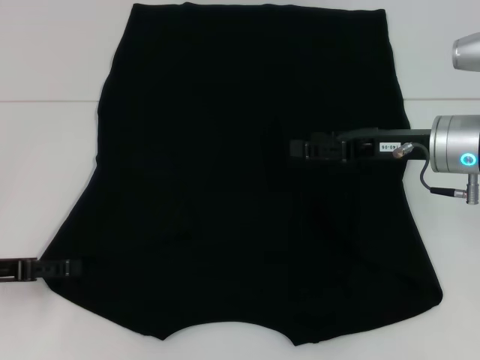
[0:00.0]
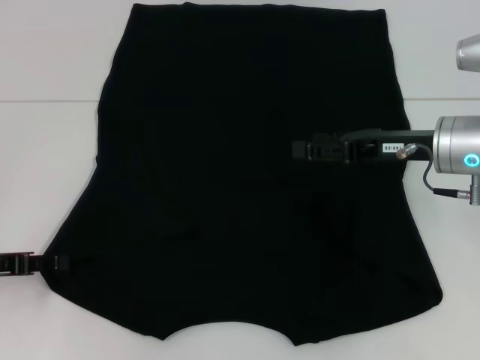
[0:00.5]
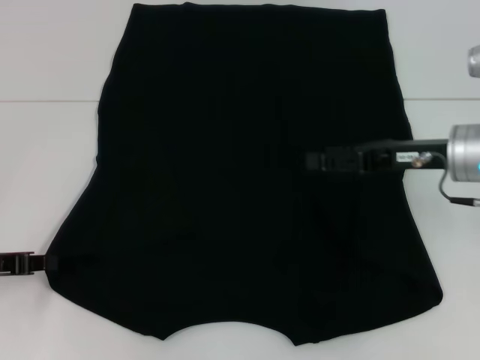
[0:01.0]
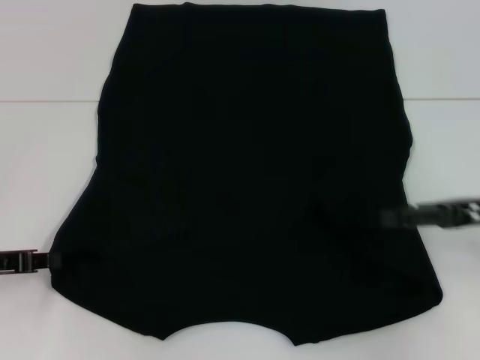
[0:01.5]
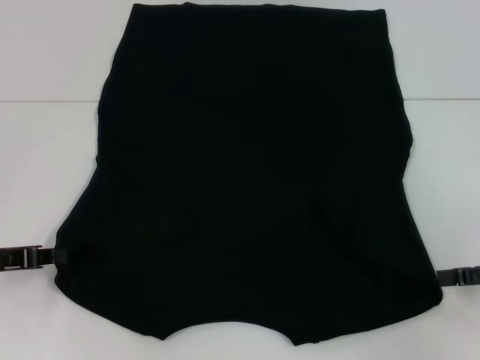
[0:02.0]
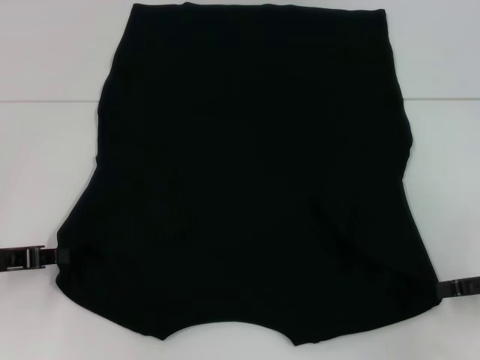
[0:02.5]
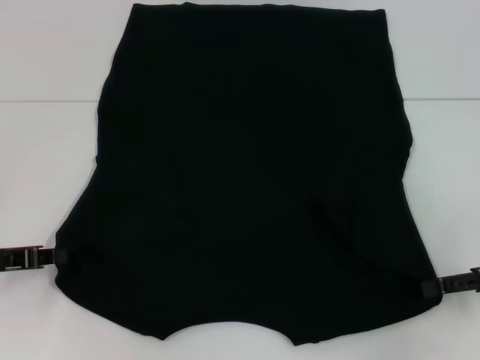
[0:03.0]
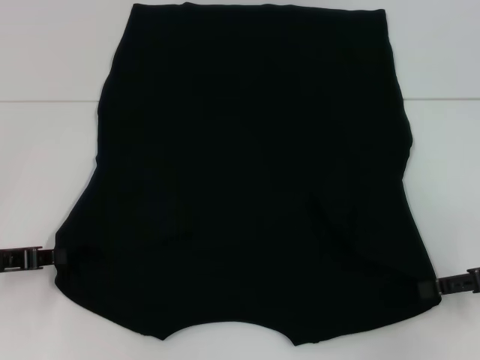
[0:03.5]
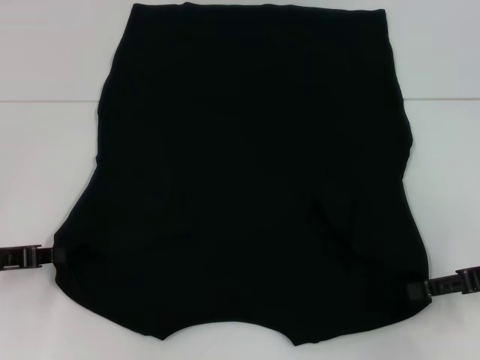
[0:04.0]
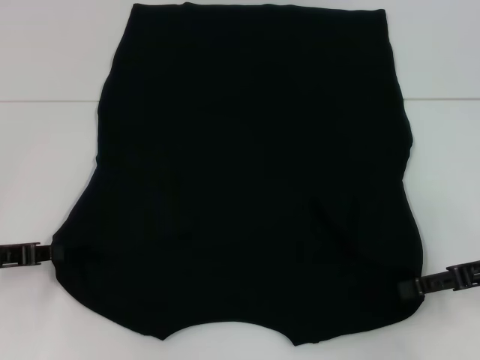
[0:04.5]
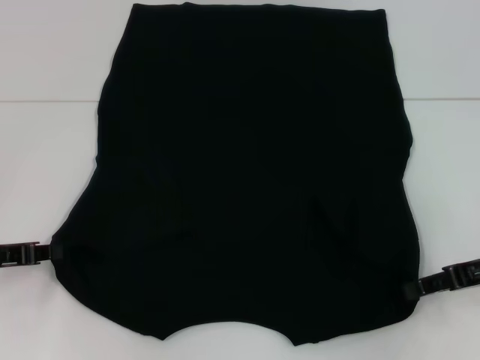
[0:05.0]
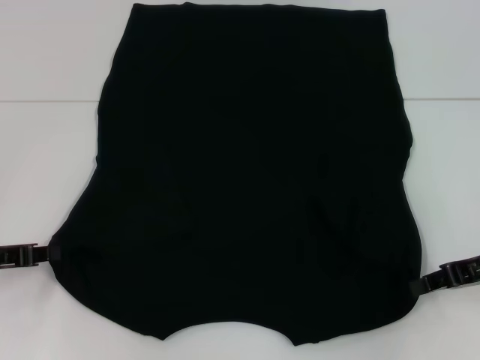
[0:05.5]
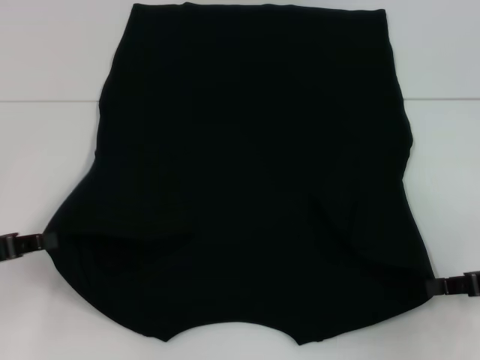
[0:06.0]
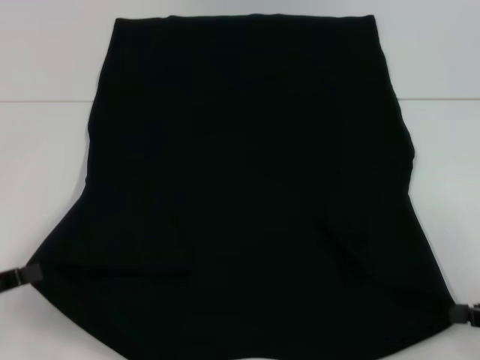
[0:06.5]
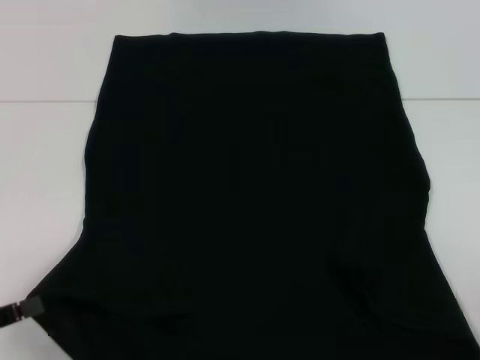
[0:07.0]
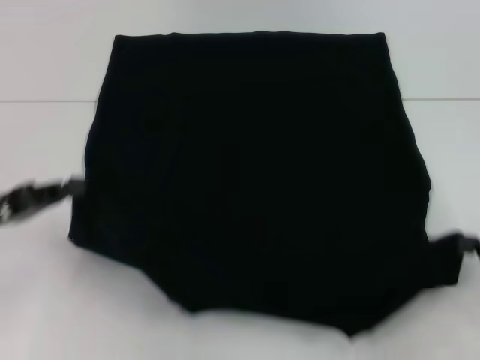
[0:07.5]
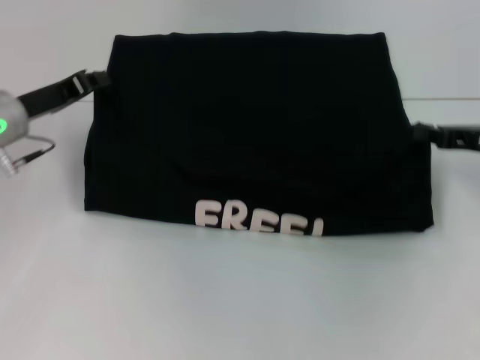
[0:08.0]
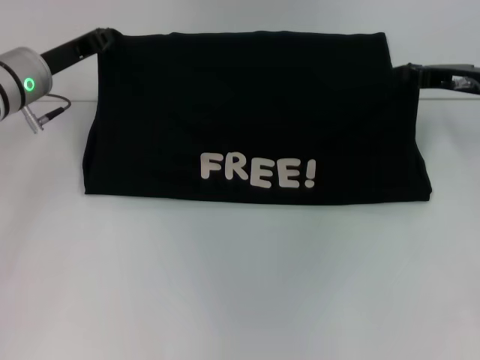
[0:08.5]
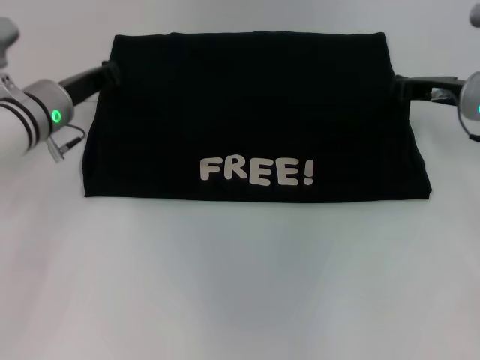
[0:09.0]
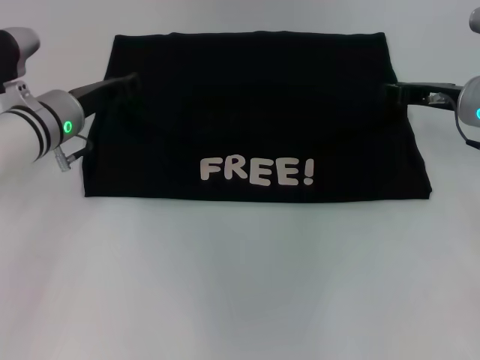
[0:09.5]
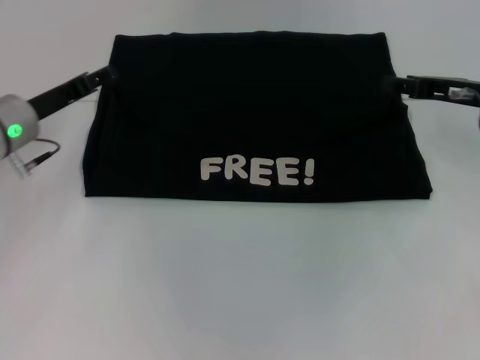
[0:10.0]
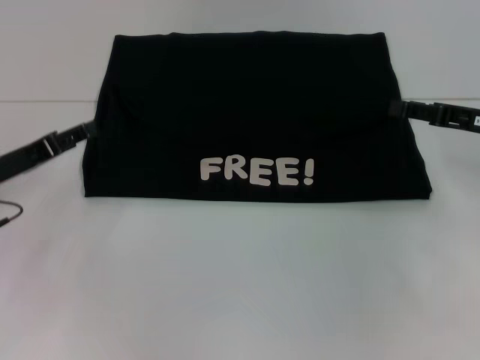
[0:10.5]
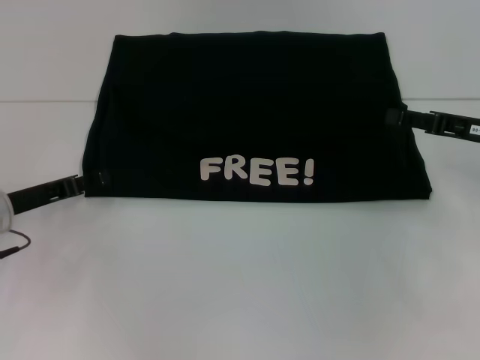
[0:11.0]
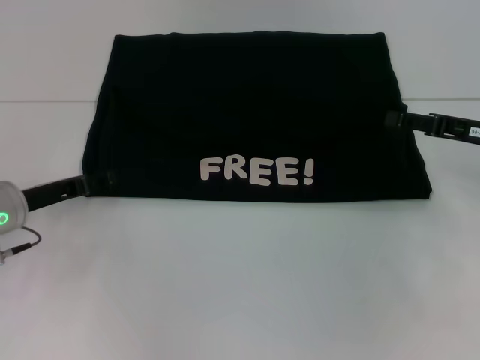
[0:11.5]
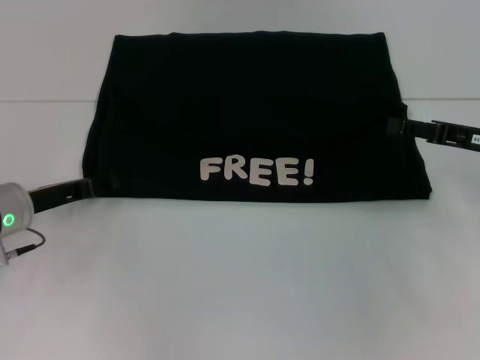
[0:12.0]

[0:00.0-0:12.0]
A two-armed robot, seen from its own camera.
Step, 2.5 to 4.5 s: Grab the bottom right corner with your right hand.
Step, 5.0 to 9.5 s: Fold the clothes with your left hand.
Step, 5.0 to 9.5 s: Fold the clothes with your right hand.
0.0 to 2.0 s: The right gripper moves to the right and backward, approximately 20 cm, while the left gripper closes up.
2.0 to 4.0 s: The grippers move only a little.
4.0 to 6.0 s: The right gripper closes.
6.0 to 8.0 s: The right gripper travels forward by about 10 cm, while the left gripper goes about 15 cm forward and to the right.
8.0 to 10.0 s: The right gripper changes place by about 5 cm, and opens. The left gripper opens its fingers.
10.0 to 12.0 s: The right gripper heads backward, covering roughly 5 cm; the left gripper moves backward and downward, roughly 10 cm.

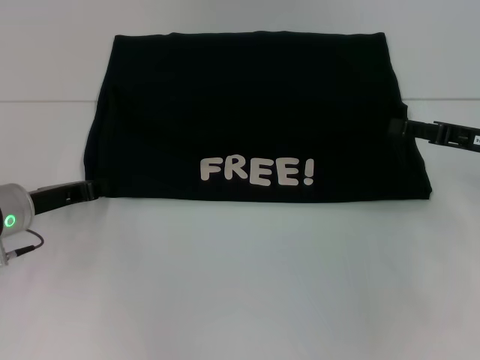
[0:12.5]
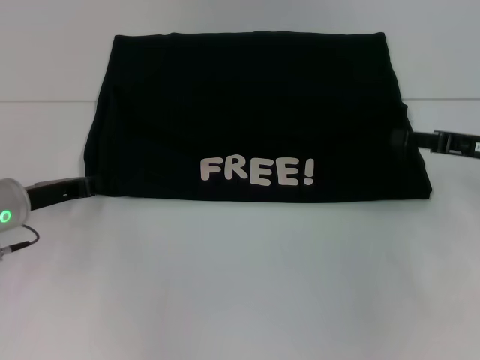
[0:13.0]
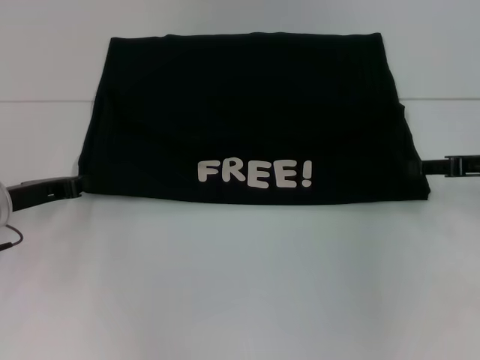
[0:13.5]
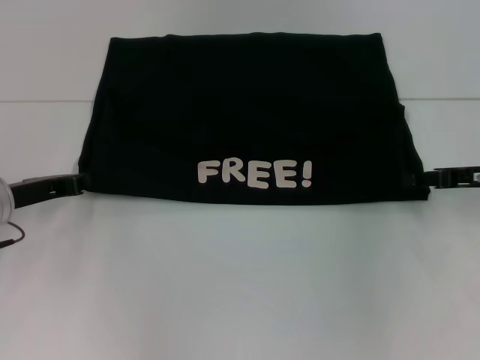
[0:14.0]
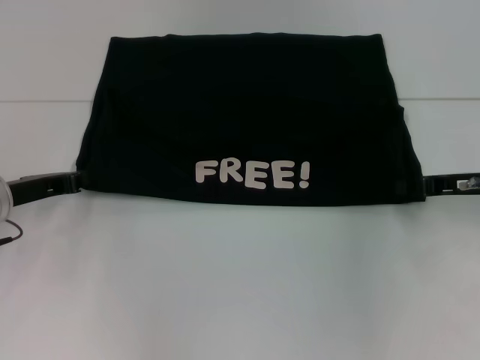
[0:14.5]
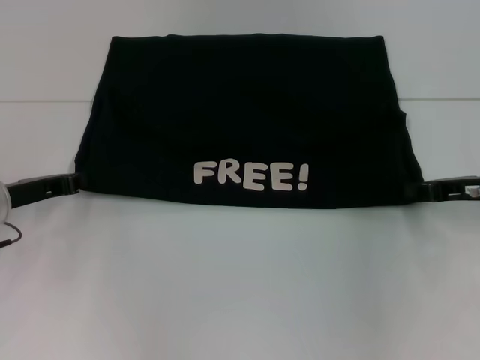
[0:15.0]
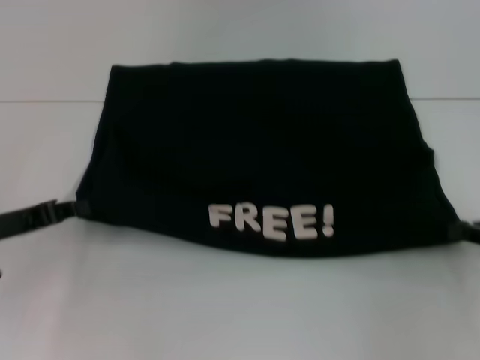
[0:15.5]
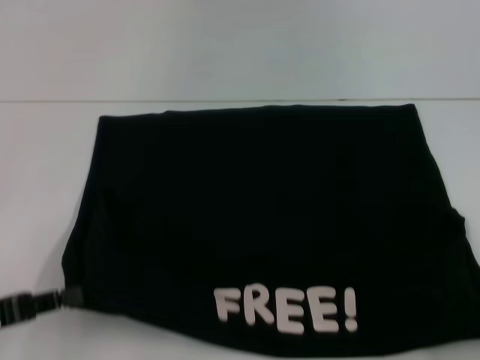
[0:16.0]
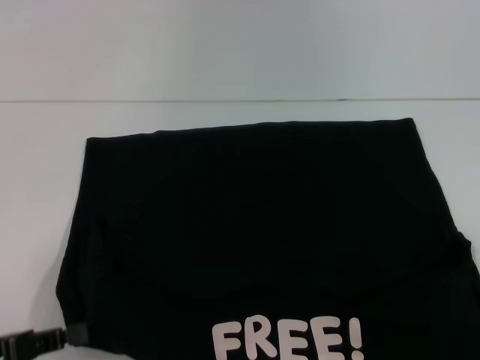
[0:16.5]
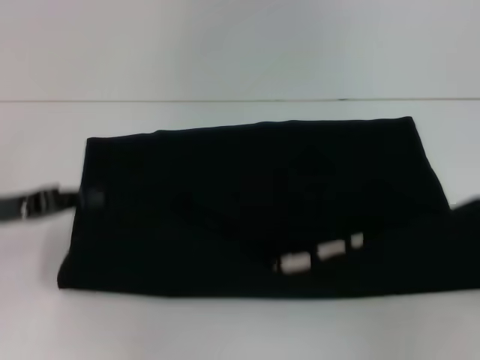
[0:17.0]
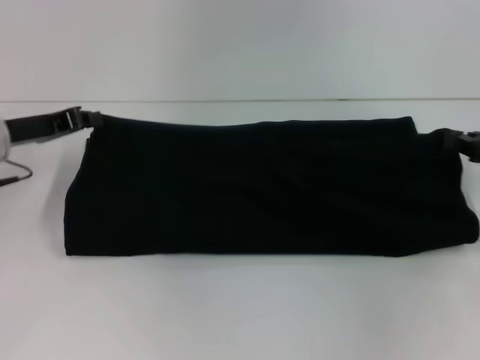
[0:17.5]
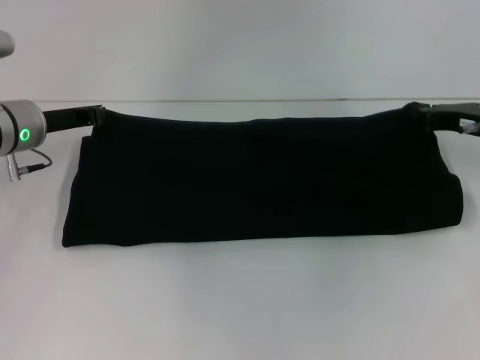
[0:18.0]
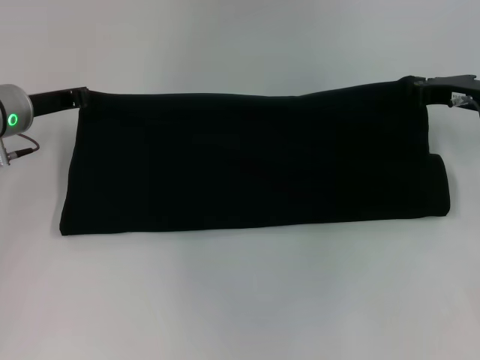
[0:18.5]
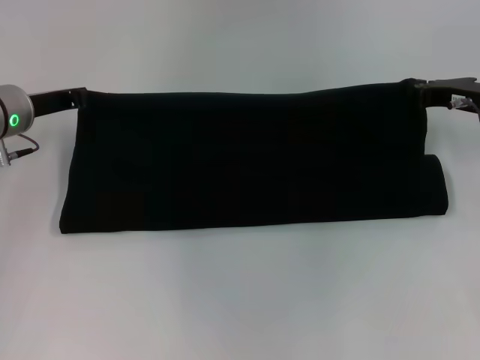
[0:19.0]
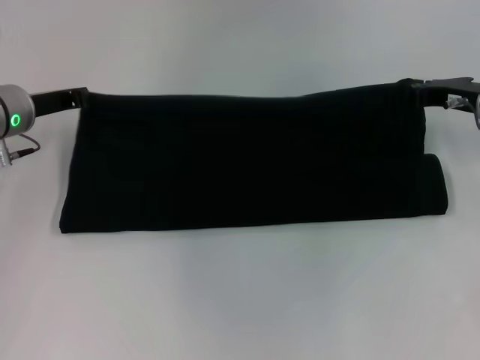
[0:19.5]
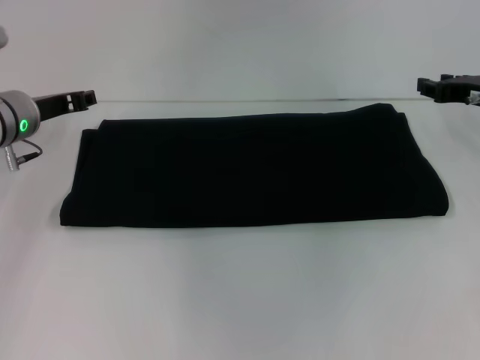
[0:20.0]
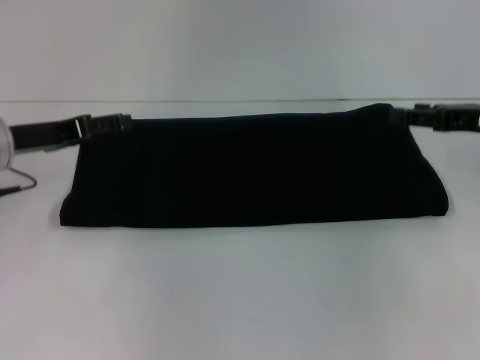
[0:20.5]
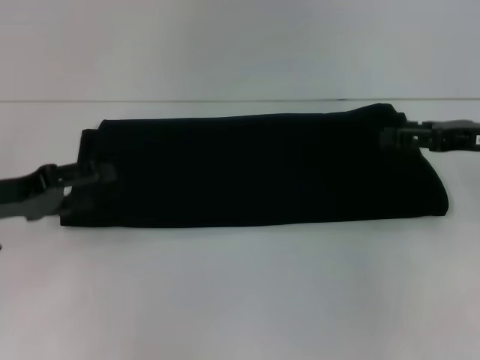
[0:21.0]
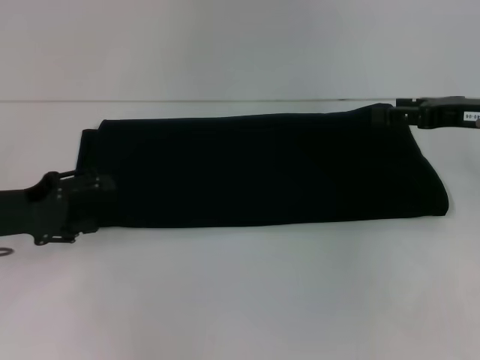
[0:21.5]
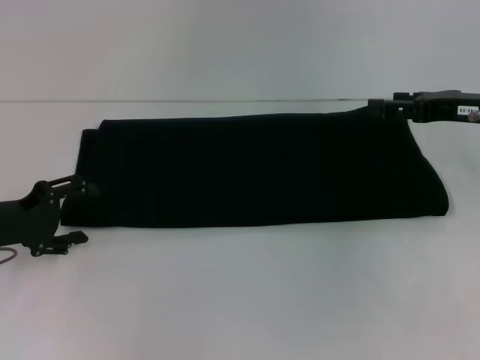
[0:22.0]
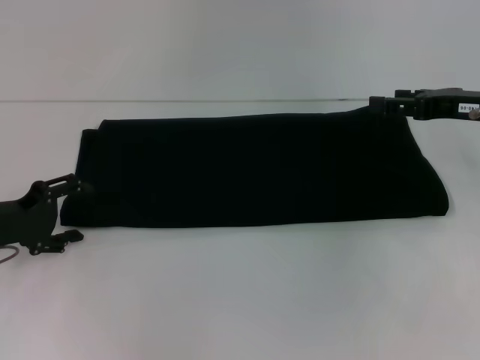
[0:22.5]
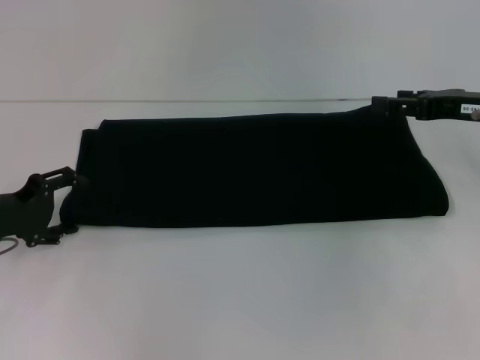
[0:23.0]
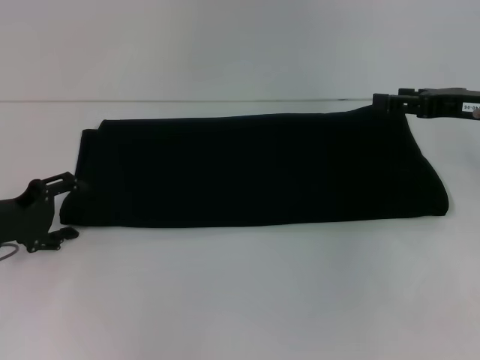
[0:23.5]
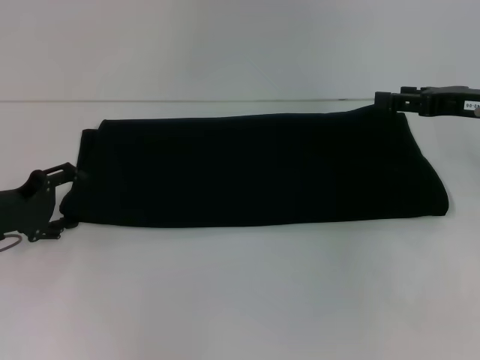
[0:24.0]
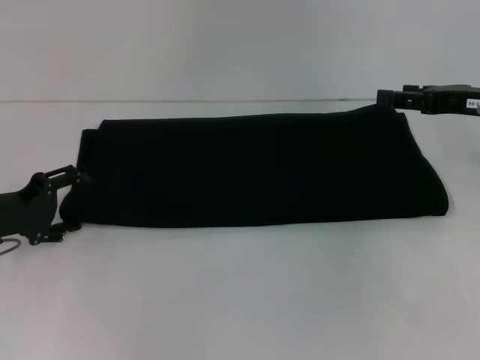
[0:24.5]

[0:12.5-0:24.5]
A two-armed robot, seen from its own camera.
Step, 12.5 to 16.5 s: Pull the clothes with your left hand.
Step, 12.5 to 16.5 s: Pull the clothes with your right hand.
Step, 17.0 to 19.5 s: Fold the clothes with your right hand.
12.5 to 14.5 s: The left gripper closes its fingers.
14.5 to 16.5 s: The right gripper travels backward and to the right by about 25 cm, and closes, while the left gripper heads backward, covering roughly 20 cm.
16.5 to 18.5 s: The left gripper heads forward, covering roughly 25 cm. Meanwhile the right gripper goes roughly 30 cm forward and to the left.
18.5 to 20.5 s: The right gripper shifts by about 5 cm, and opens its fingers; the left gripper travels backward by approximately 5 cm, and opens.
20.5 to 22.5 s: The left gripper shifts about 10 cm downward and backward.
22.5 to 24.5 s: The grippers stay close to where they were, moving slightly.

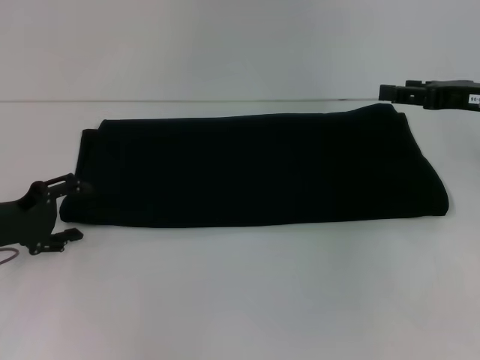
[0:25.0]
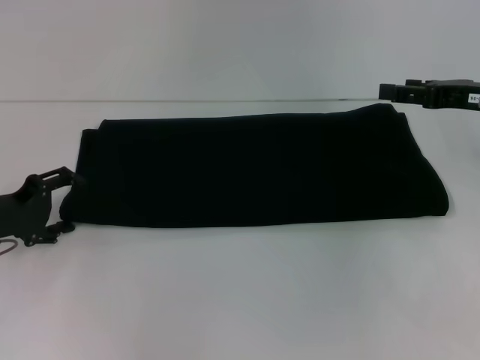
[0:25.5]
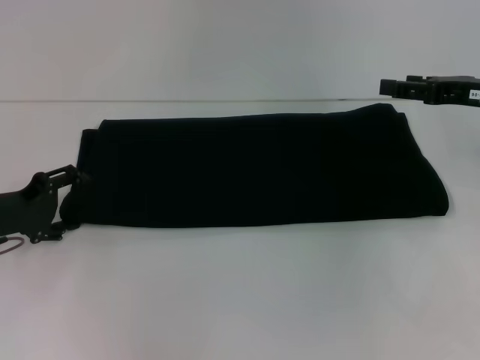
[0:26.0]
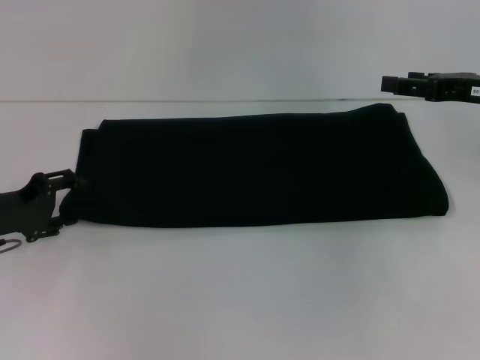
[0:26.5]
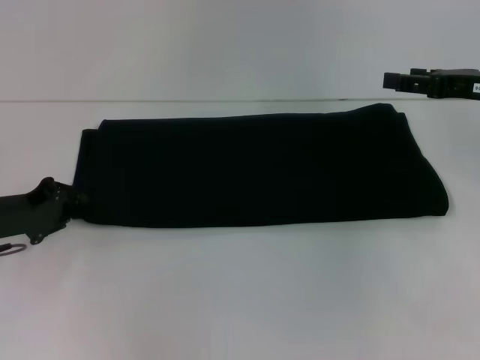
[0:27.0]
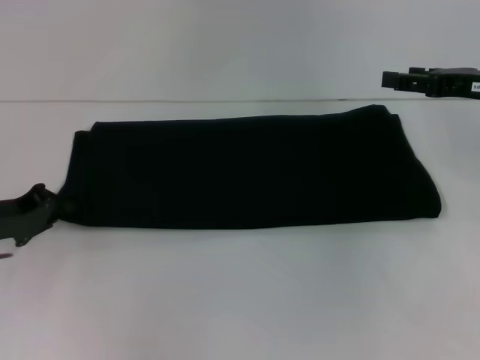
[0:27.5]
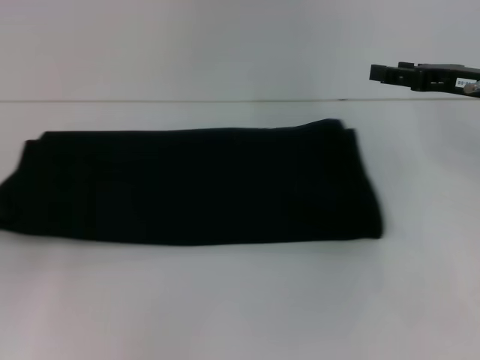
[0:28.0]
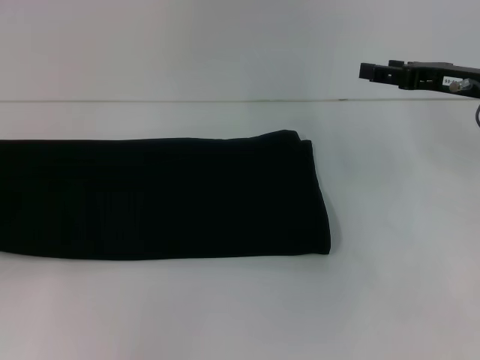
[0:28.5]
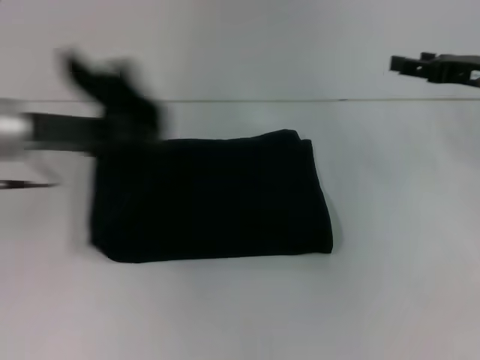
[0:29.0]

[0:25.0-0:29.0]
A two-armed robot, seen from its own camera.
25.0 to 27.0 s: The left gripper closes up.
27.0 to 29.0 s: The left gripper is displaced upward by roughly 10 cm, moves approximately 10 cm to the left and comes back, and closes its fingers.
